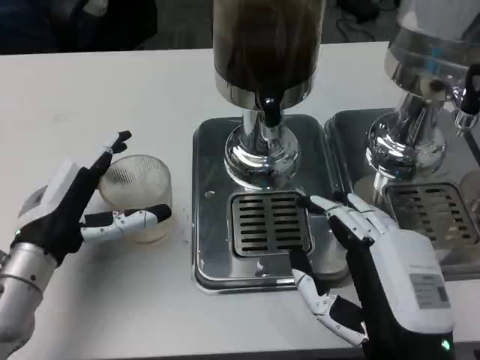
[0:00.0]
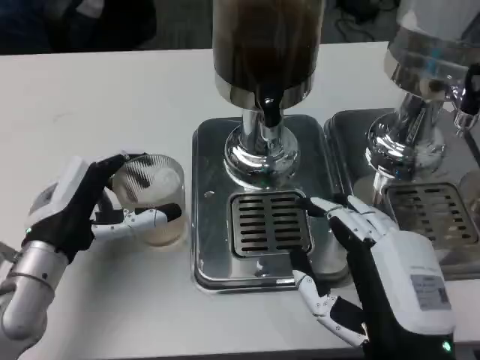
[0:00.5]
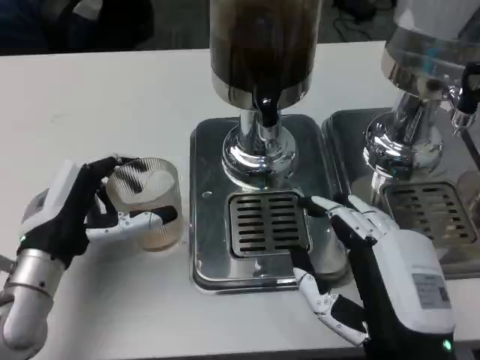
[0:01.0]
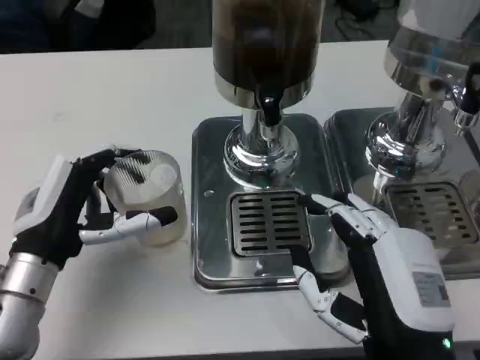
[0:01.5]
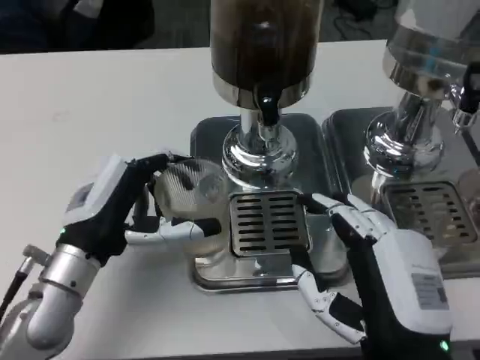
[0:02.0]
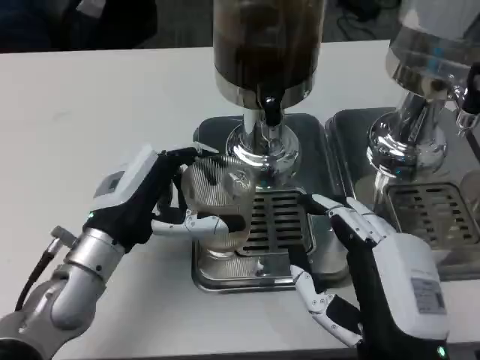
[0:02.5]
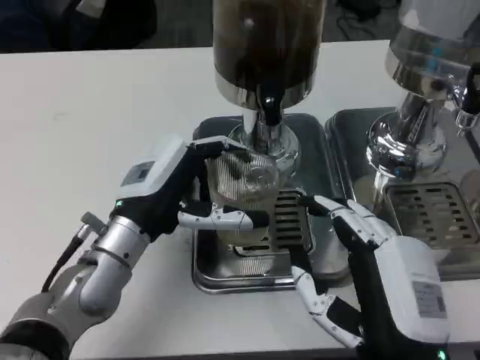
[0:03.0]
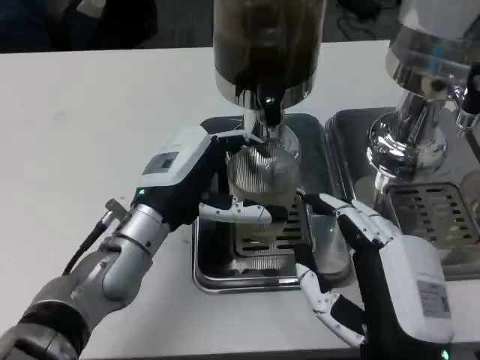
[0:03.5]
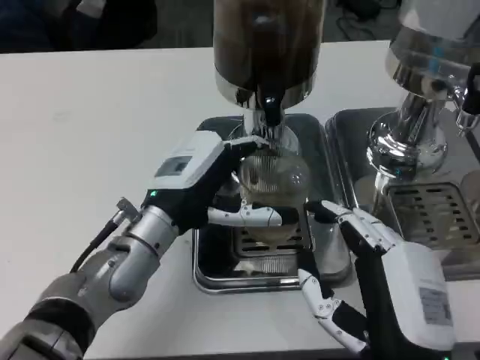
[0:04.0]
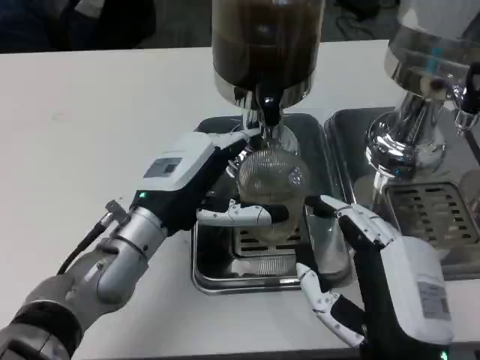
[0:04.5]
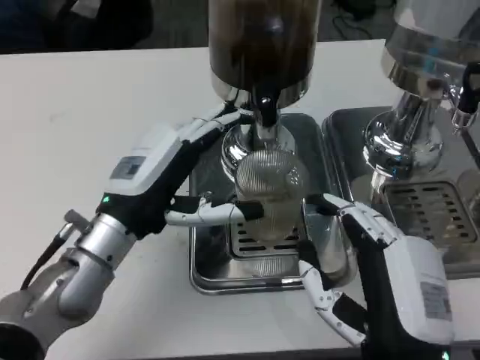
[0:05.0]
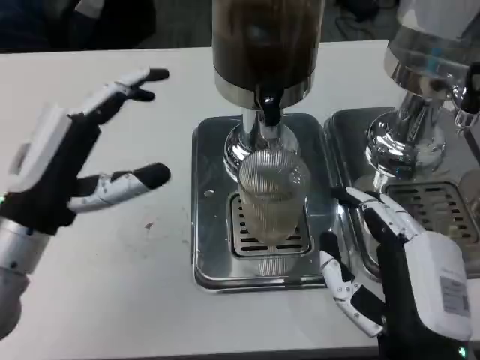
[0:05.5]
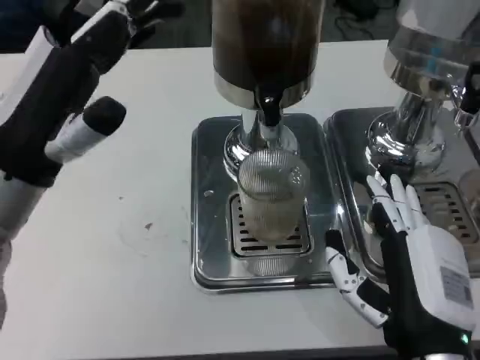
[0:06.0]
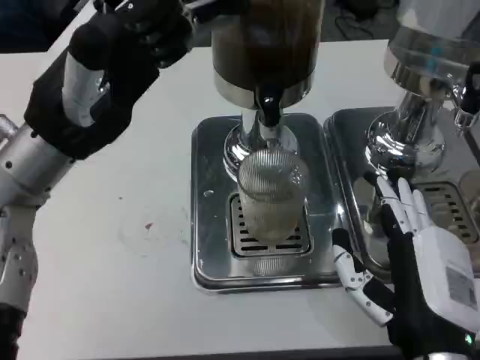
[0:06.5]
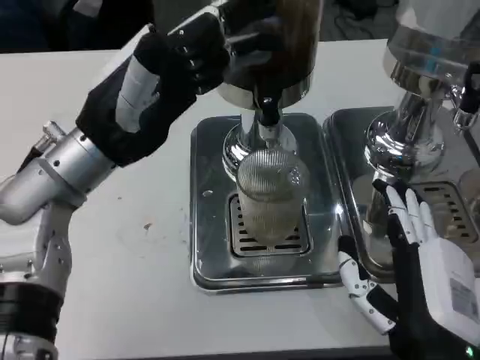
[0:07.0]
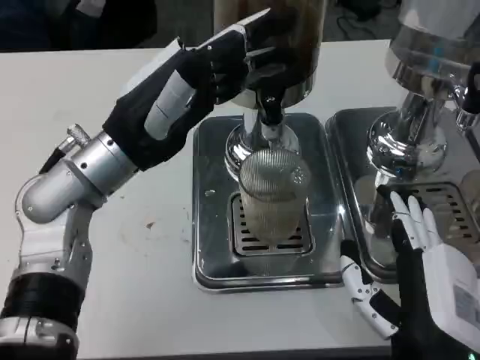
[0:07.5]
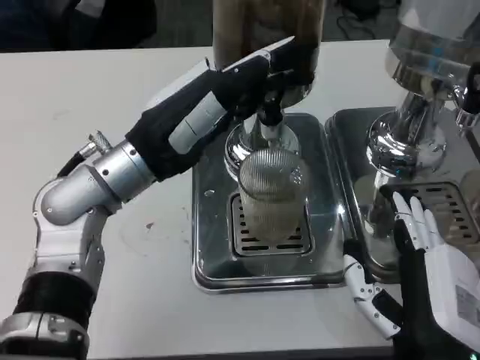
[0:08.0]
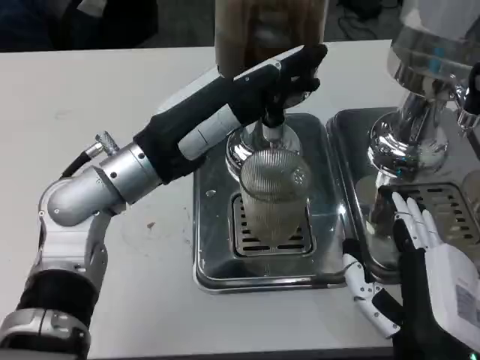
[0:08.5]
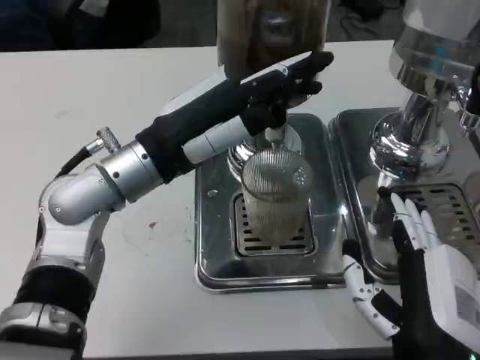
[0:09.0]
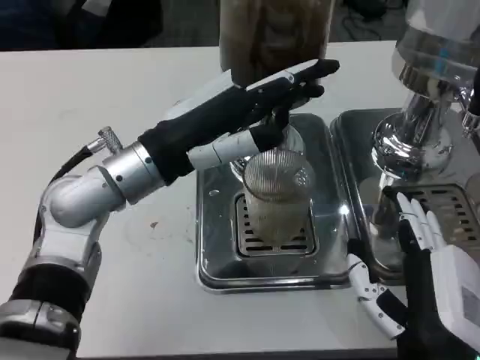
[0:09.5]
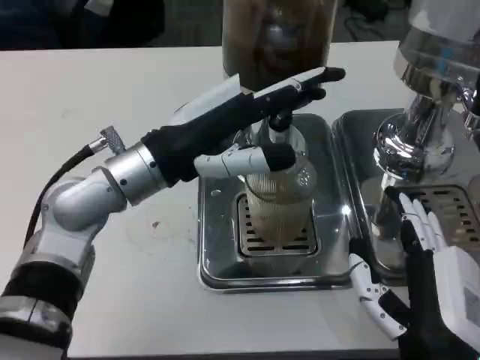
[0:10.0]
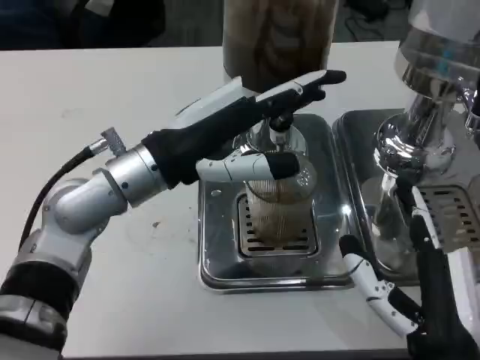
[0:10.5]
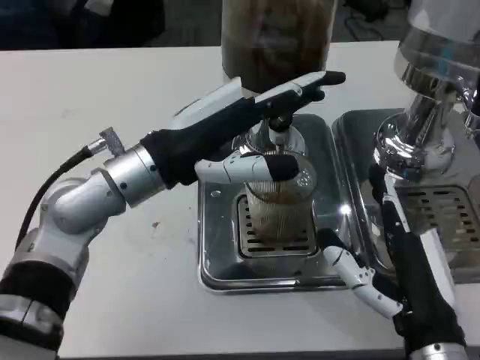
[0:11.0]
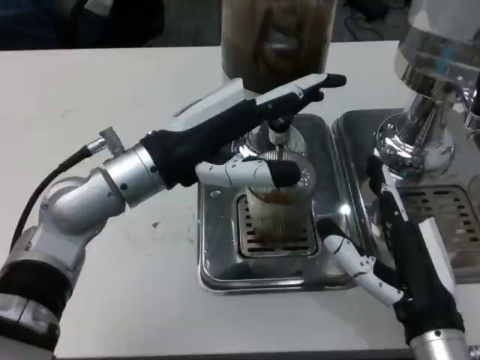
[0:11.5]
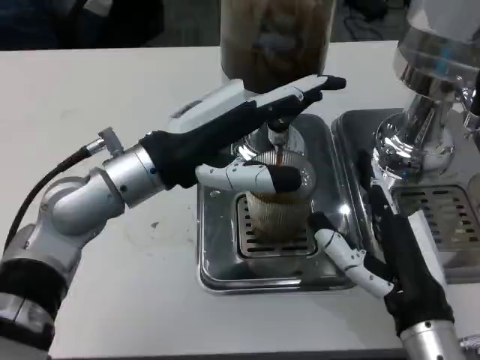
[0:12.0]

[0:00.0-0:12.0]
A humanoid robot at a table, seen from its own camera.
Task of the whole recording: Grasp the cup under the faucet to collect the drink, then remove the cup.
0:02.0 to 0:04.0: The left hand is displaced to the right by about 5 cm.
0:04.0 to 0:06.0: The left hand is displaced upward and to the left by roughly 15 cm.
0:06.0 to 0:08.0: The left hand heads to the right and forward, covering approximately 10 cm.
0:10.0 to 0:12.0: The right hand moves roughly 5 cm.

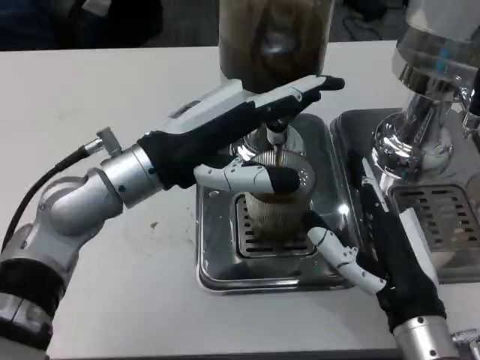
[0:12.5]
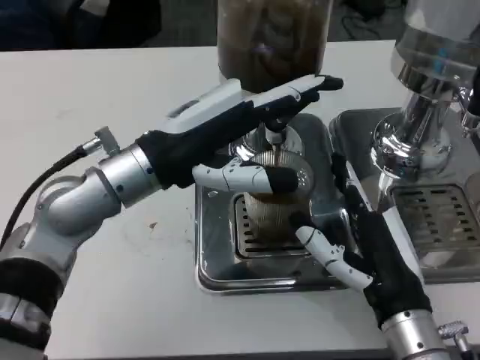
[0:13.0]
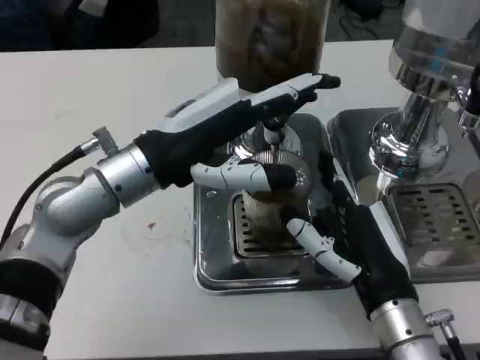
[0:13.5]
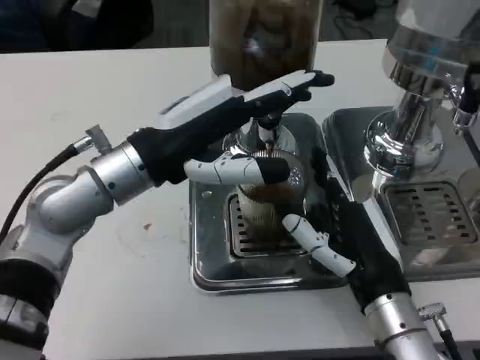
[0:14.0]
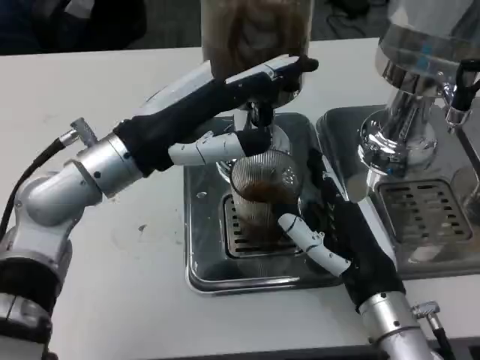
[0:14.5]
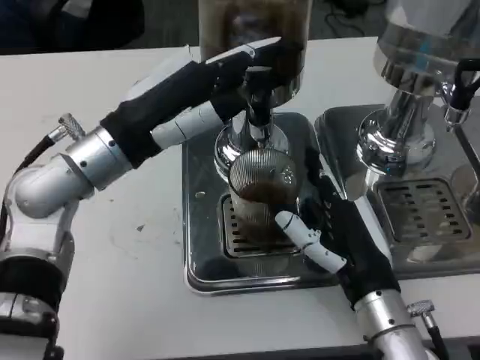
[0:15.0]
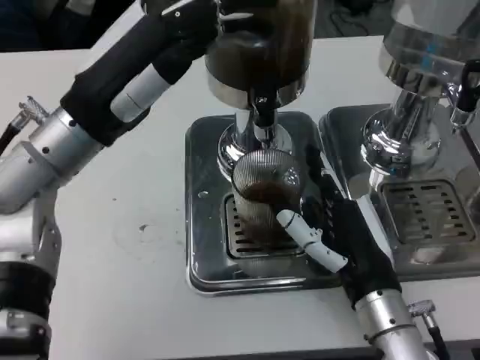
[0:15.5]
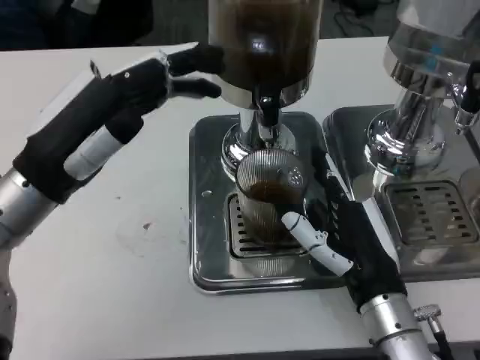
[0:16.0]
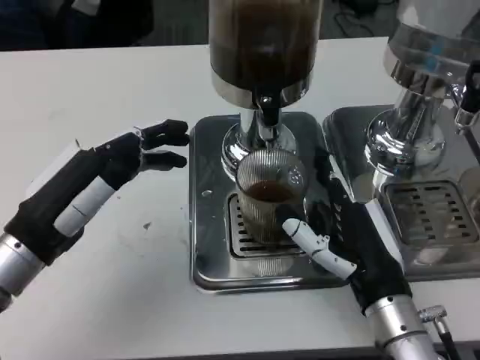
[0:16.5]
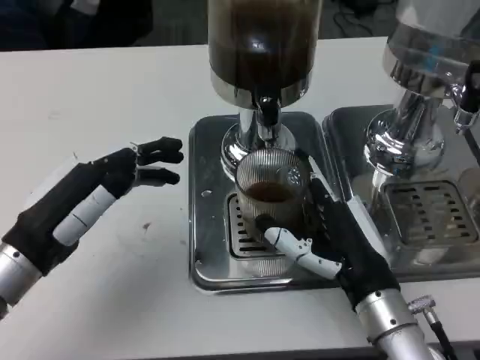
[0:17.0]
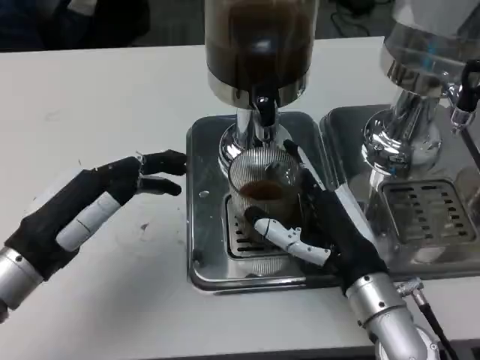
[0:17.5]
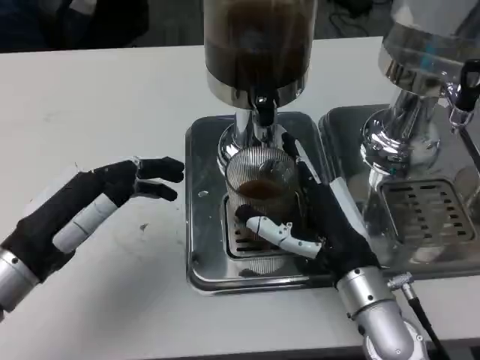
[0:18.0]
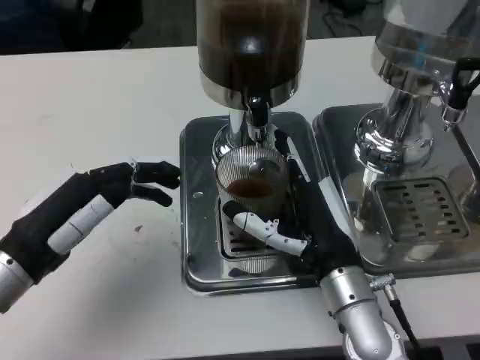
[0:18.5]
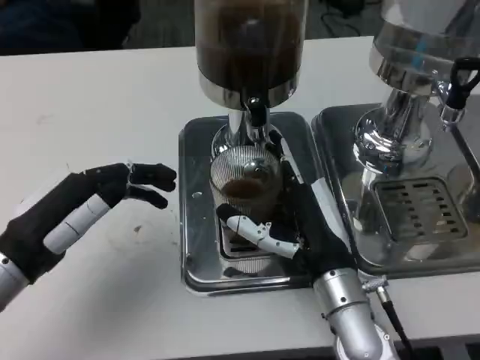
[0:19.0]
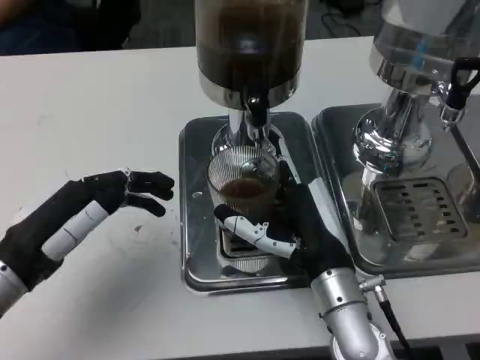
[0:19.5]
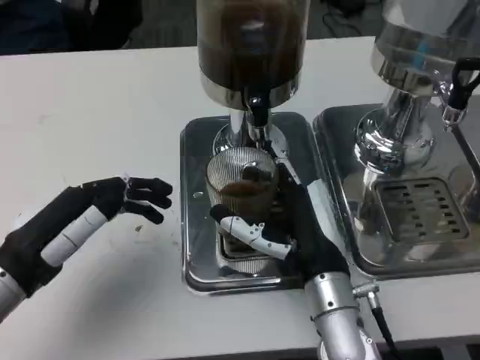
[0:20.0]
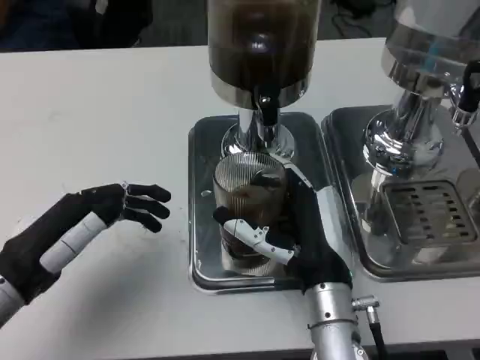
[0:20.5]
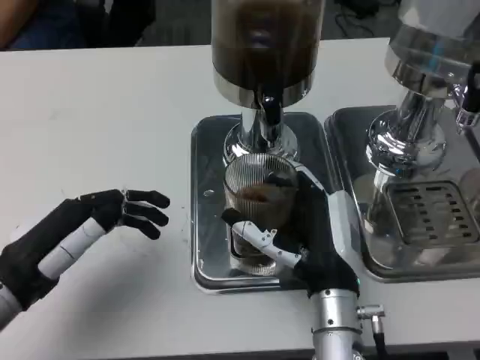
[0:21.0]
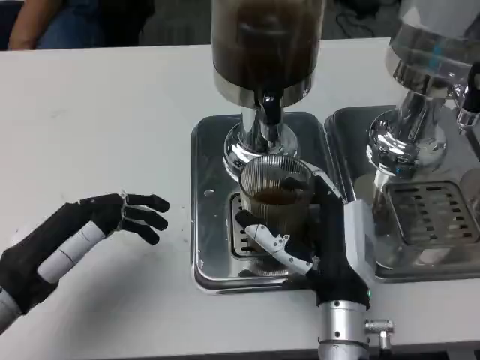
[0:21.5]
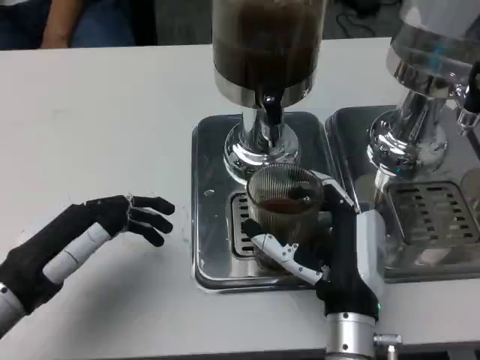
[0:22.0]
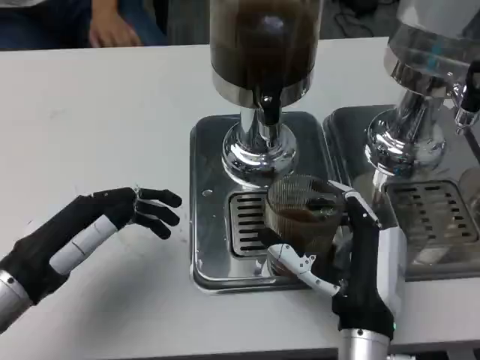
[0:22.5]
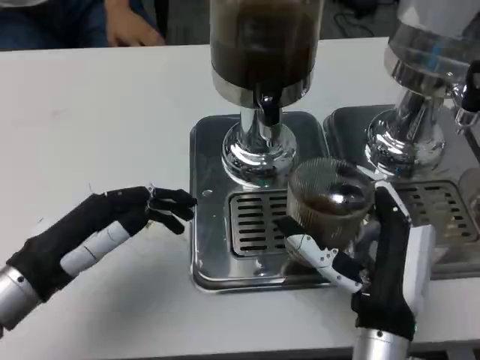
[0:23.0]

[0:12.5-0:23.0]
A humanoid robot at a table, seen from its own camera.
Task of the whole recording: Grasp the cup under the faucet to collect the drink, then remove the cup.
0:14.5 to 0:16.5: The left hand travels to the left, backward and downward by about 15 cm.
0:16.5 to 0:19.0: The right hand ends up approximately 5 cm from where it was.

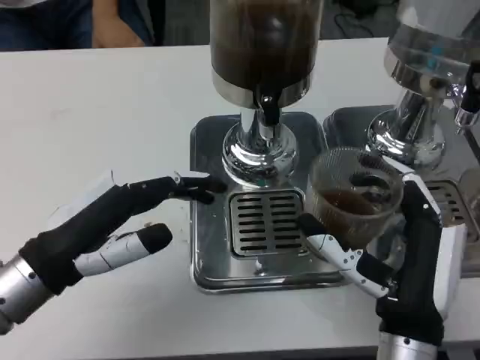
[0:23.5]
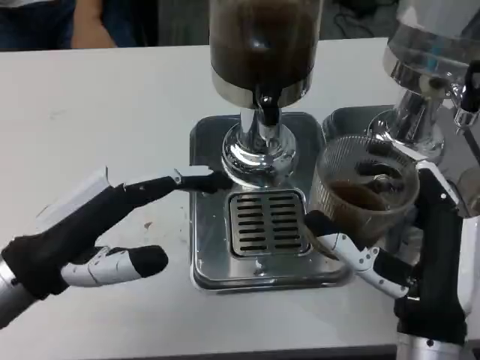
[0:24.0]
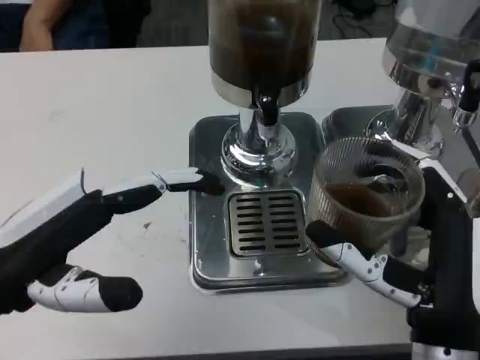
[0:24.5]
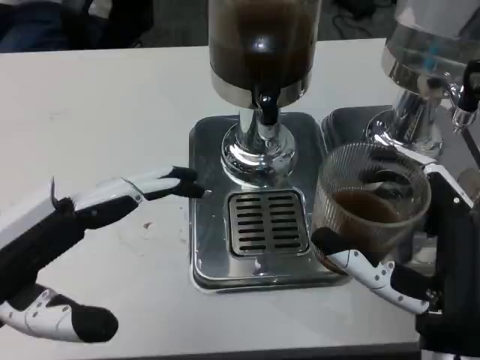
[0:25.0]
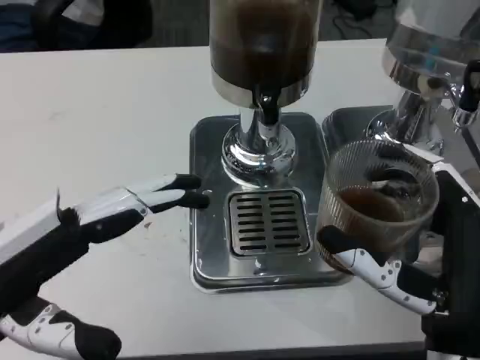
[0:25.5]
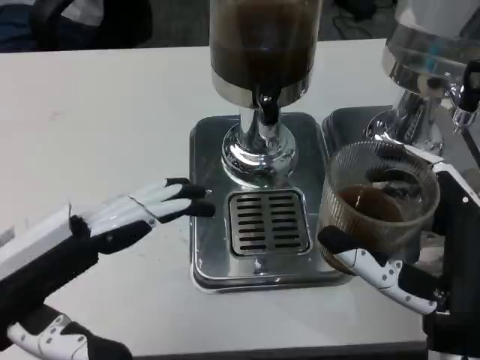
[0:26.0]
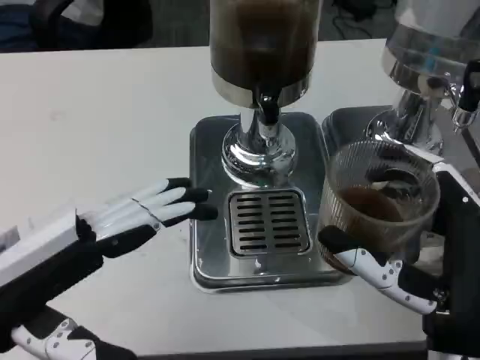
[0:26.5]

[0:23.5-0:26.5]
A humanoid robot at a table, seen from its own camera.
Task of the whole recording: Grasp the cup under the faucet to collect the drink, then remove the cup.
0:23.5 to 0:25.0: The left hand shifts approximately 5 cm upward and backward, while the right hand ends up about 5 cm from where it was.
0:25.0 to 0:26.5: The hands move only a little.
